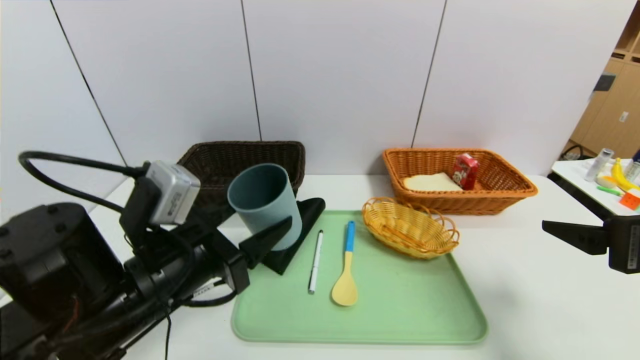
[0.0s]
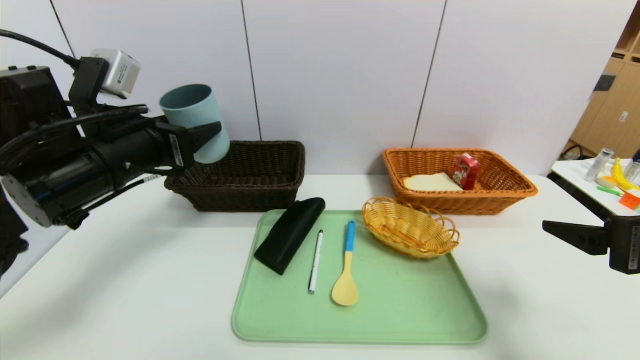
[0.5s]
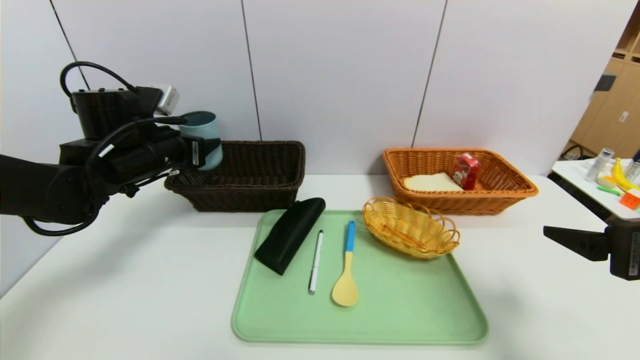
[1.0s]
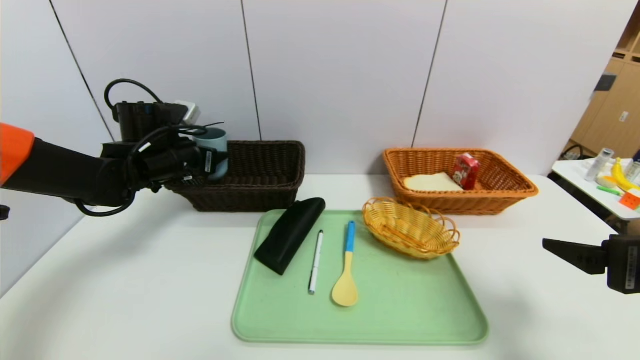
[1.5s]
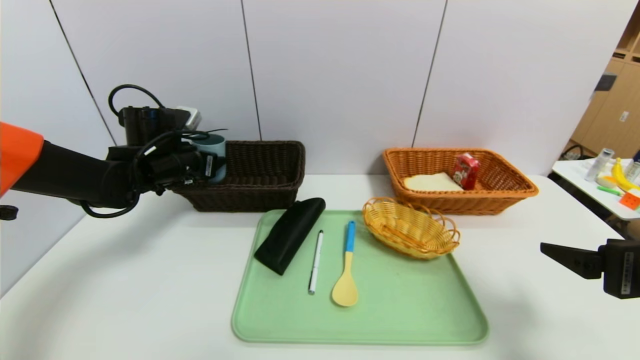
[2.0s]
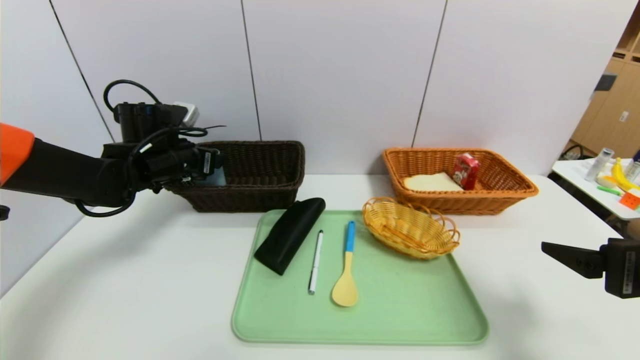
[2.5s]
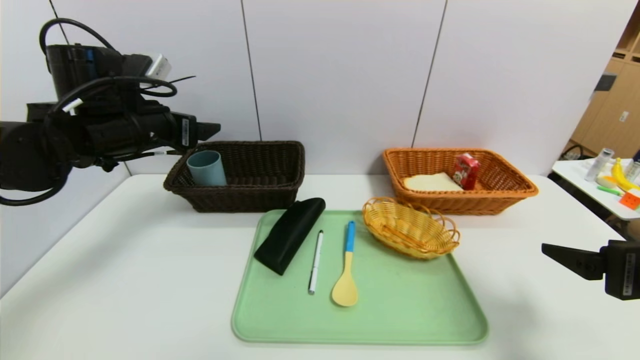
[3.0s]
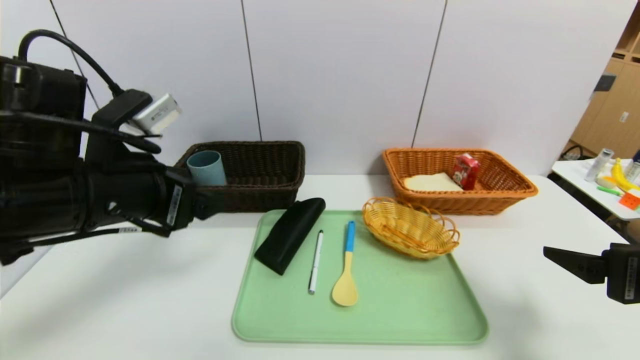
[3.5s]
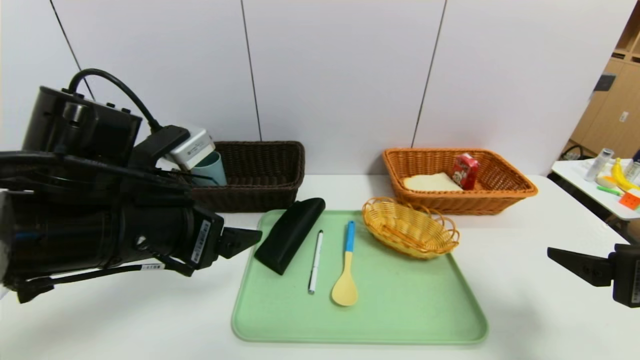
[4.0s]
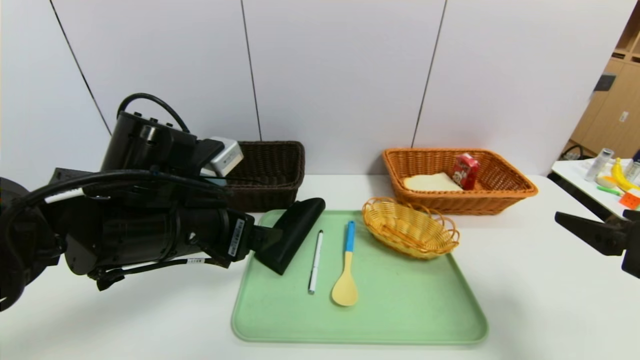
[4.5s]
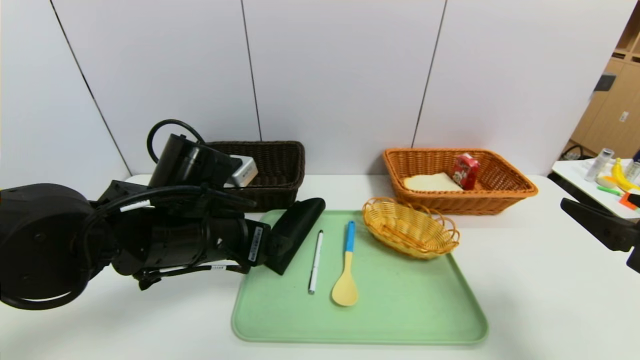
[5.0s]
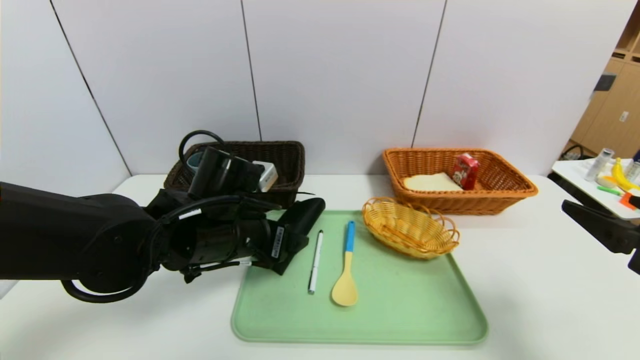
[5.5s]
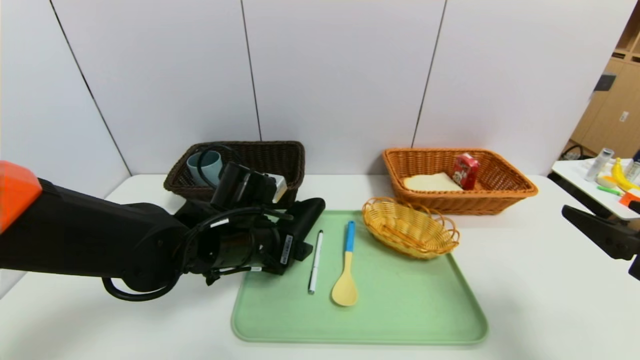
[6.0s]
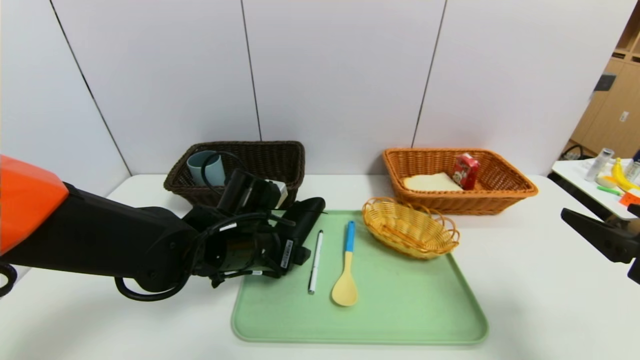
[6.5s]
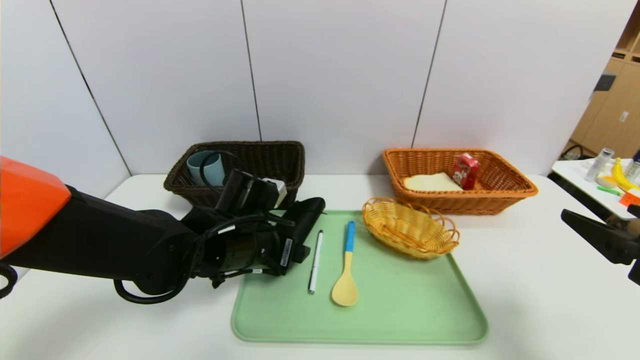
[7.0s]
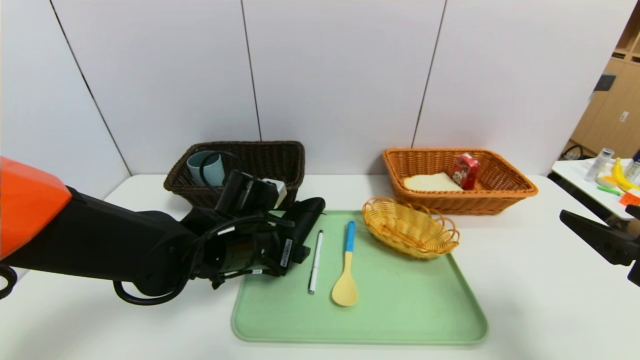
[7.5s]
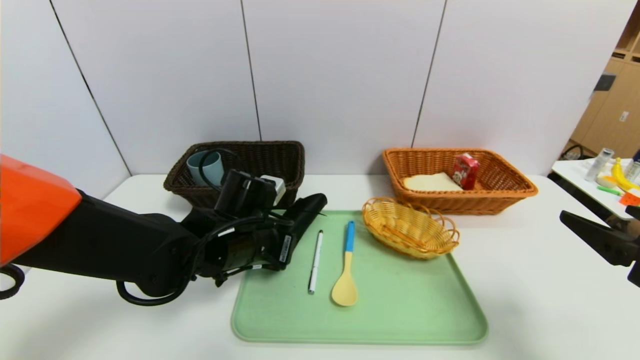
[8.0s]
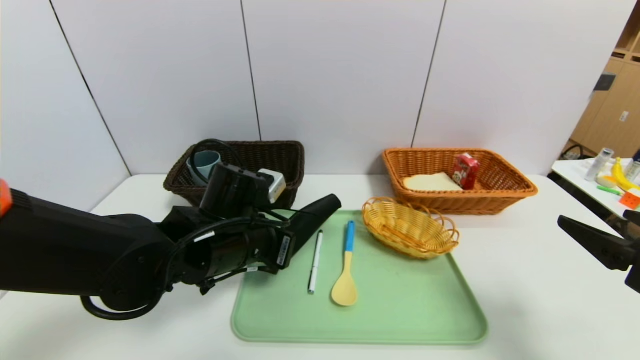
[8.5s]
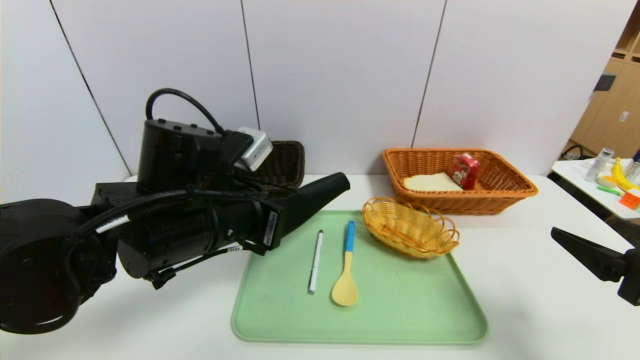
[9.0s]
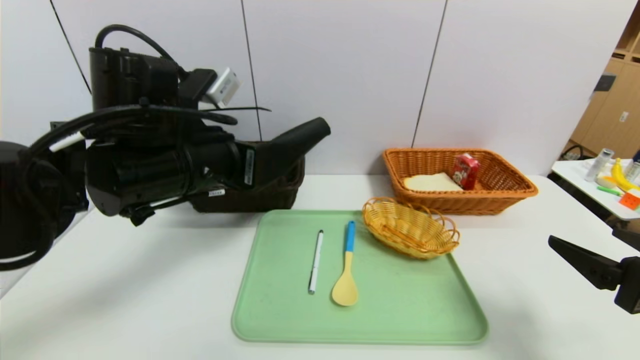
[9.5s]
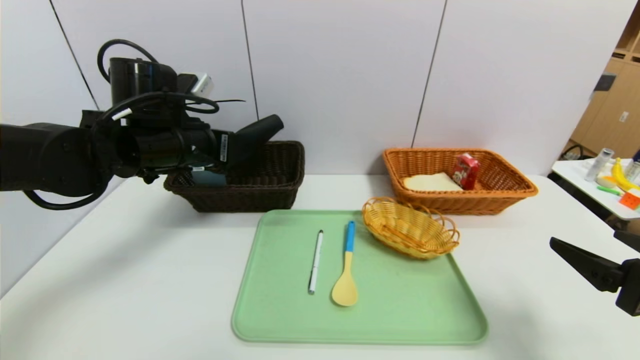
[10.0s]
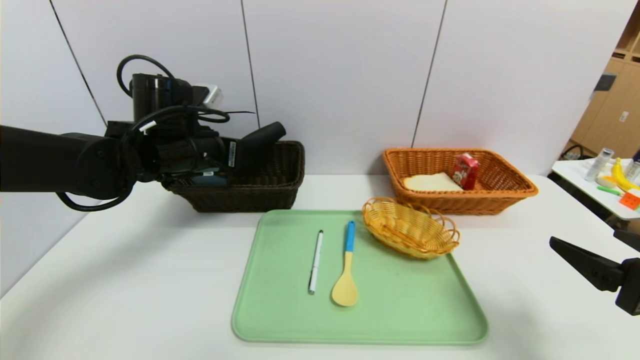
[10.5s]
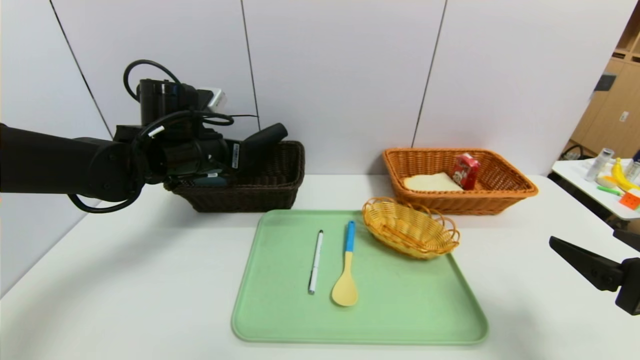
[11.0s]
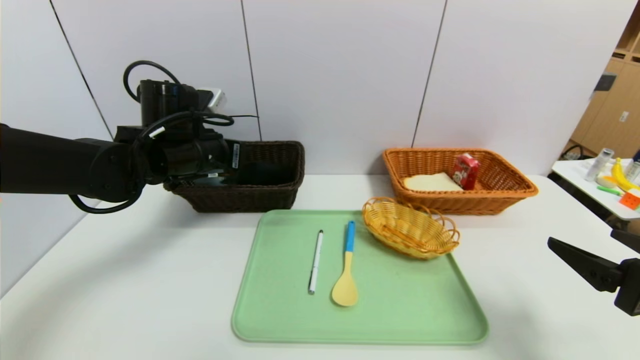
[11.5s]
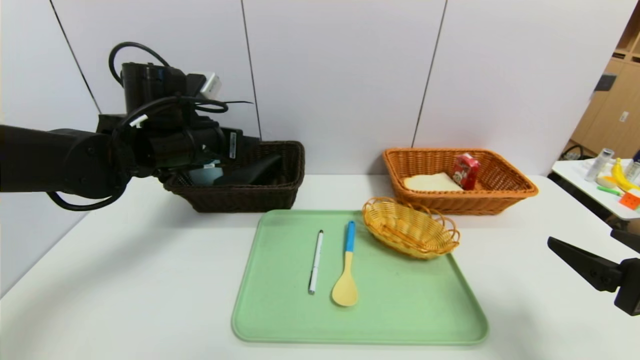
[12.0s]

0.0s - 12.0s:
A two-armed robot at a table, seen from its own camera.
Task of the whole recording: place the food in the right basket with the right gripper, and place the non food items in the left basket with the left gripper.
Step, 0.0s - 2.0s: Grasp the blue cup and put it in the left basket.
Step, 2.5s - 11.5s: Grasp the glasses case and put it in the left basket.
0.0s - 2.0s: The left gripper moves forward and to the left, some 25 cm.
2.0s - 4.0s: The left gripper shifts approximately 20 cm backward.
4.0s - 6.0s: The left gripper moves downward, forward and to the right, about 15 cm.
6.0s - 8.0s: The left gripper closes up.
8.0s - 10.0s: The left gripper heads upward and to the left, covering about 15 cm, and closes.
10.0s - 12.0s: The left gripper opens its fingers.

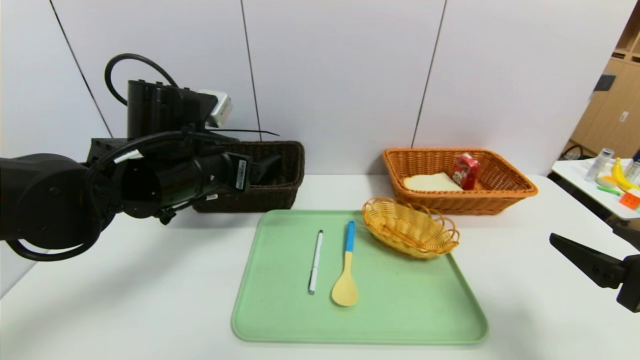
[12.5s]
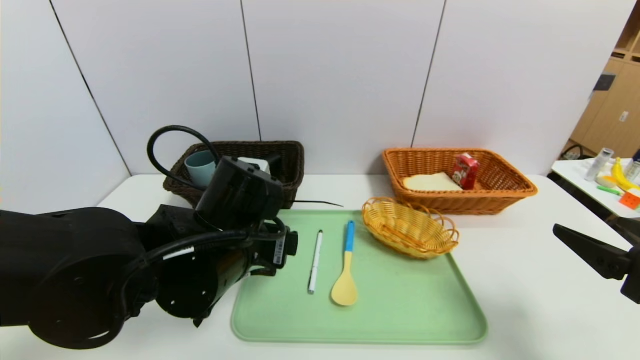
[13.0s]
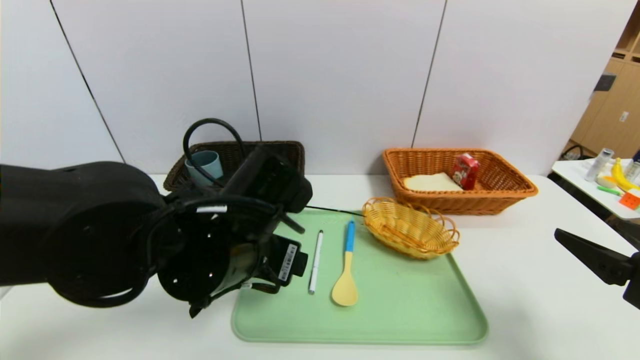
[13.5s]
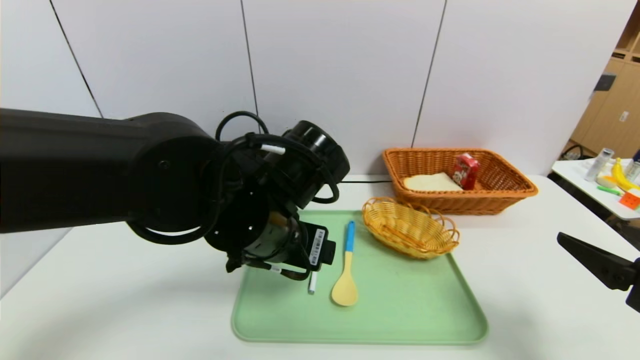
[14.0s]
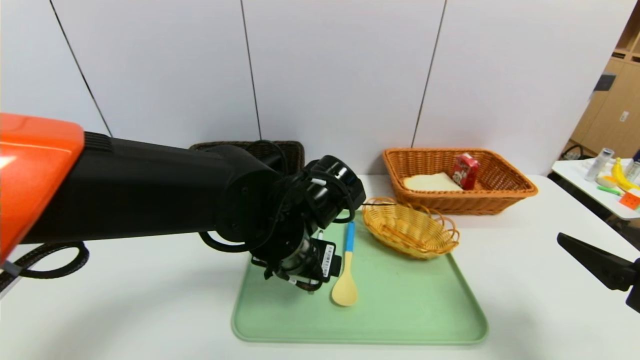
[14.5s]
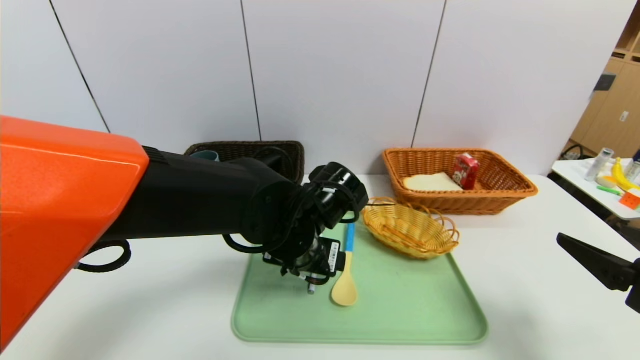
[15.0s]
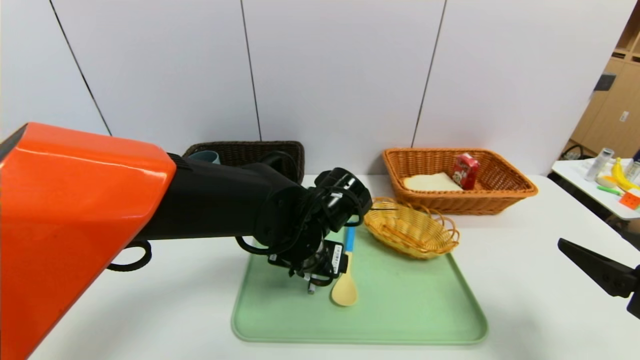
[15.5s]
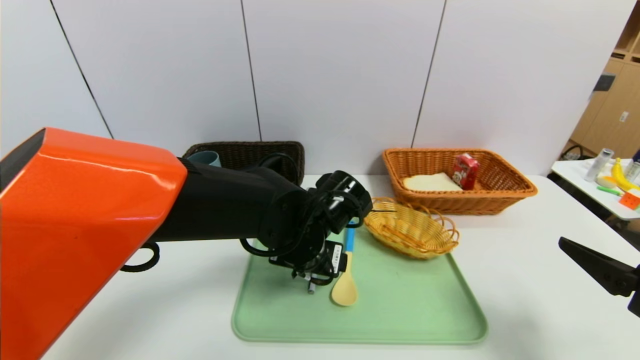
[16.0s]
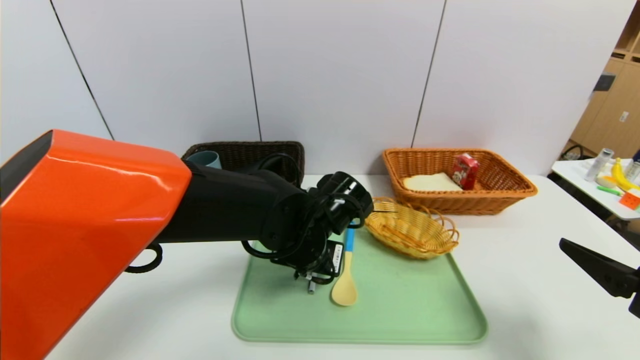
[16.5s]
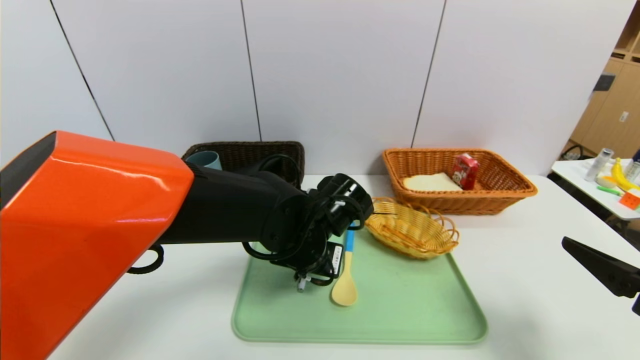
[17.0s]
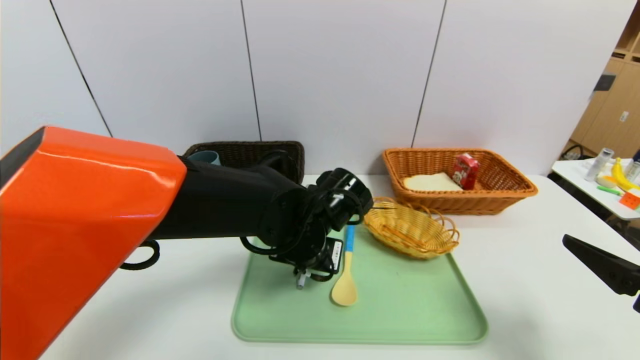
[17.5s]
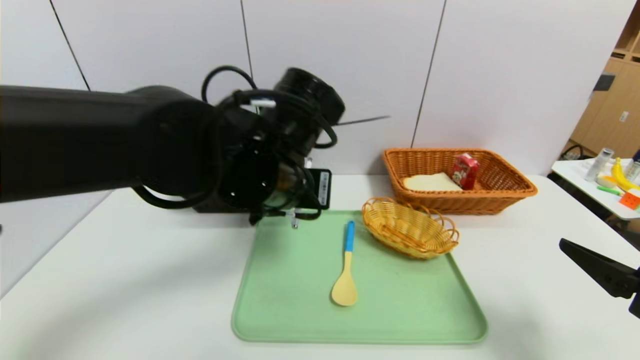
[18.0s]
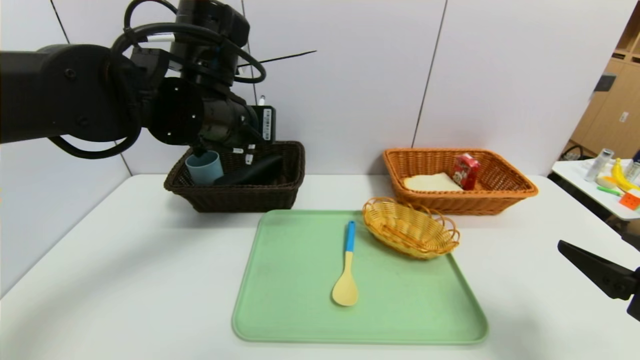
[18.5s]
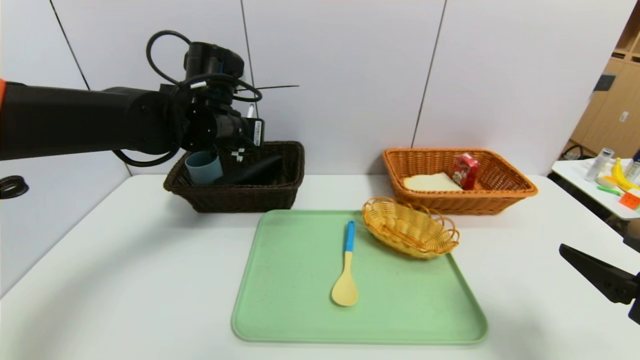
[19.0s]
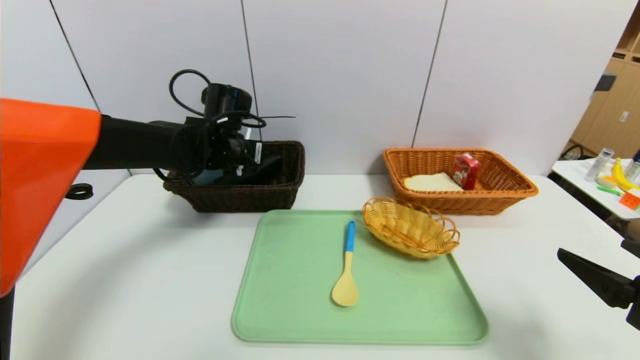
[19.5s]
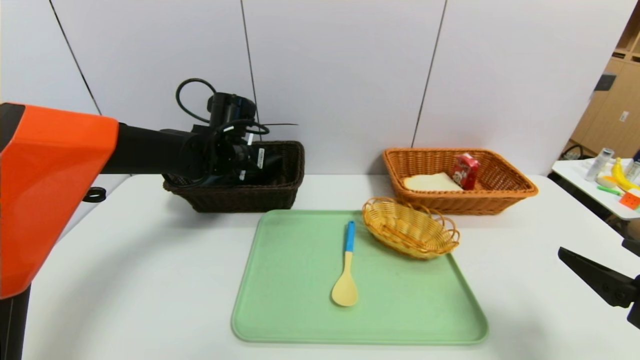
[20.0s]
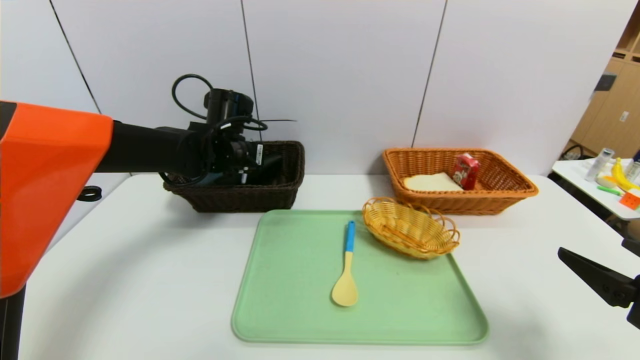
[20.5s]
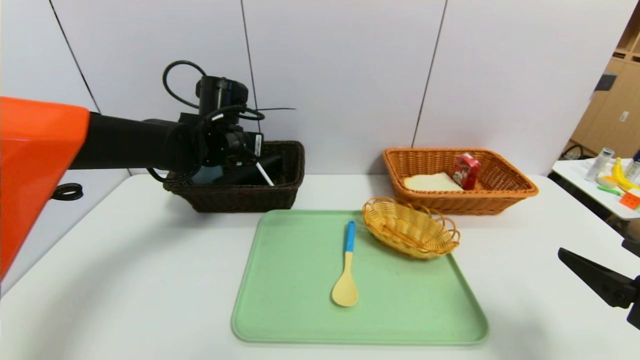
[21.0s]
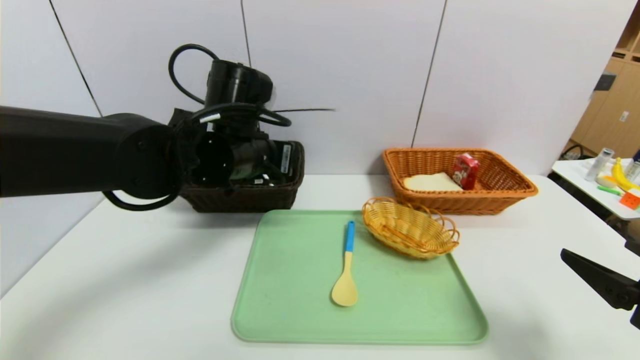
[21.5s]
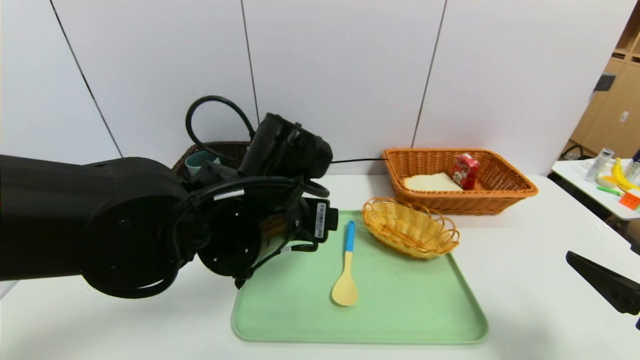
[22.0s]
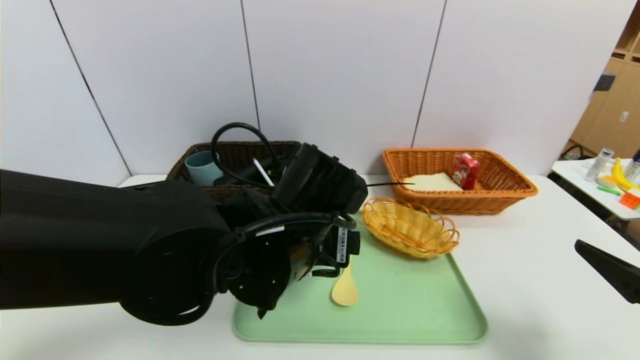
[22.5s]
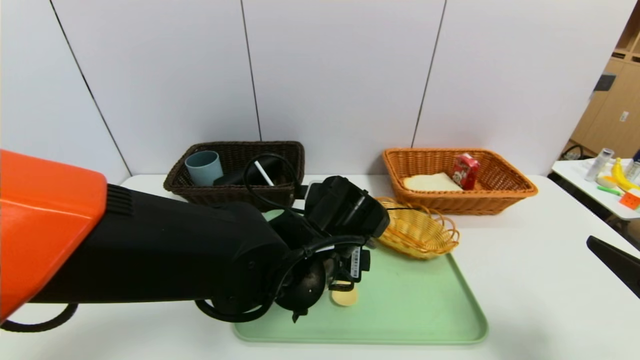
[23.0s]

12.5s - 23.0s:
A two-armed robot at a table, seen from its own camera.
Task of the whole recording: place the food in the right basket with the right gripper, and place the non food items in the left basket with the left gripper.
Step, 12.5s - 20.5s: Grasp the ballpoint pen and put it in the left basket.
12.5s - 14.5s: The left gripper shifts about 15 cm to the right and downward.
14.5s - 16.5s: The left gripper ends up approximately 5 cm from where it was.
16.5s - 19.0s: The left gripper travels to the left, upward and forward by approximately 20 cm, and closes up.
19.0s - 21.0s: The left gripper opens.
21.0s - 23.0s: The left gripper heads backward and to the right, covering some 25 cm.
